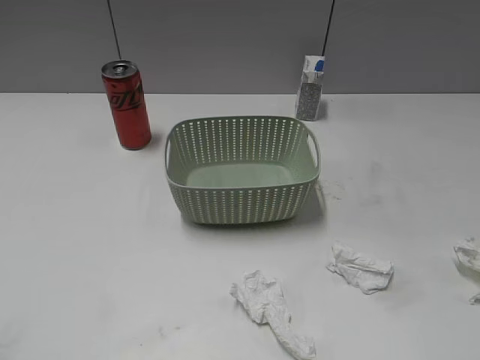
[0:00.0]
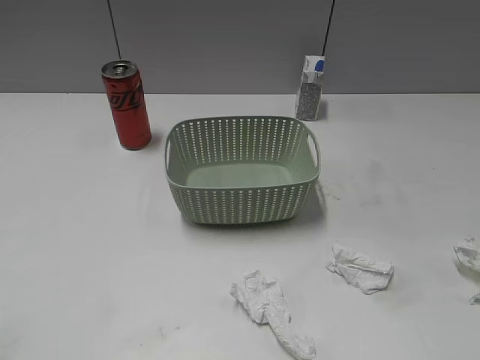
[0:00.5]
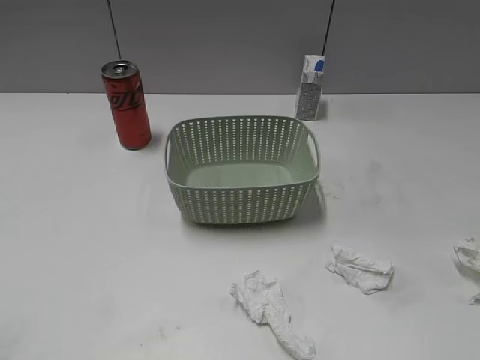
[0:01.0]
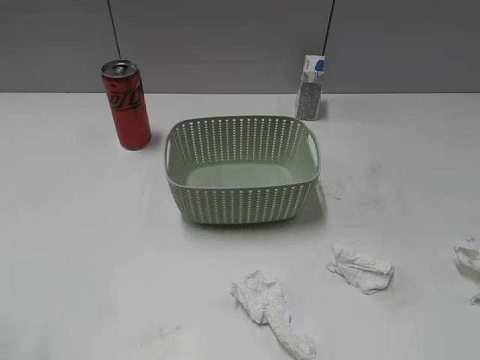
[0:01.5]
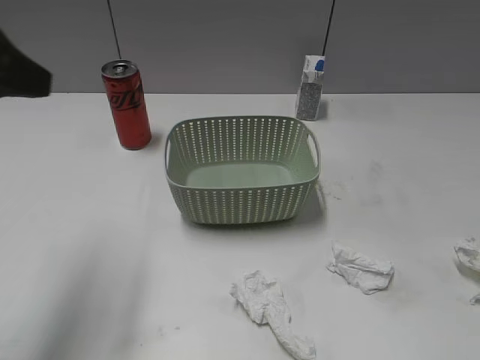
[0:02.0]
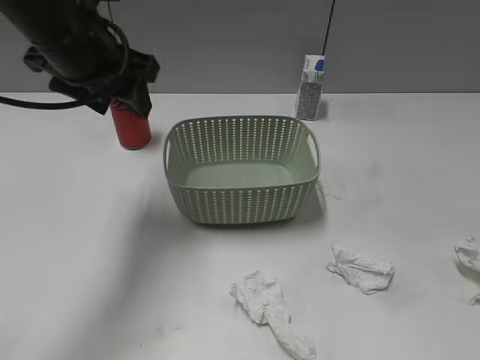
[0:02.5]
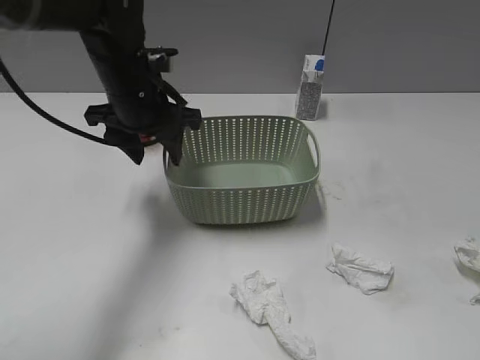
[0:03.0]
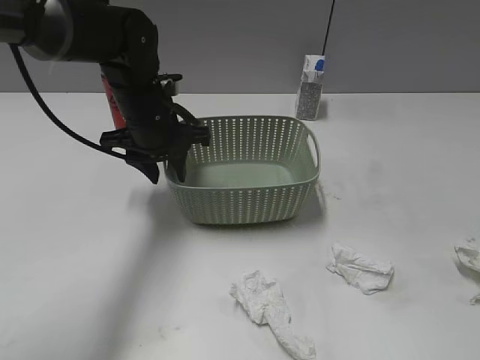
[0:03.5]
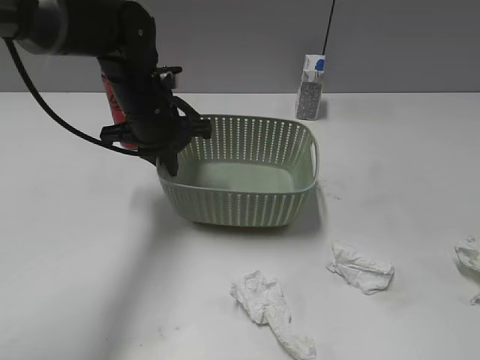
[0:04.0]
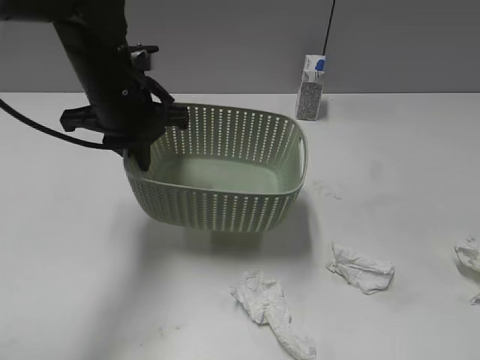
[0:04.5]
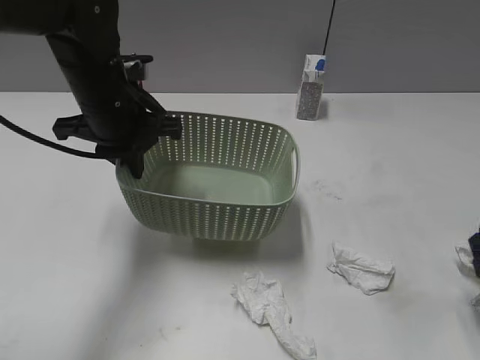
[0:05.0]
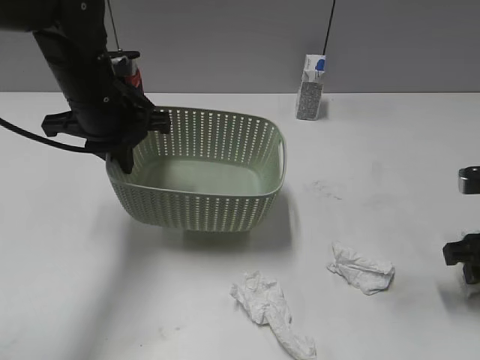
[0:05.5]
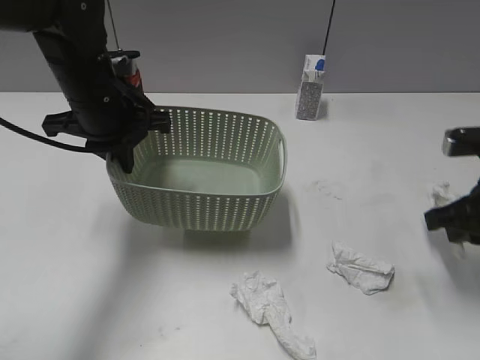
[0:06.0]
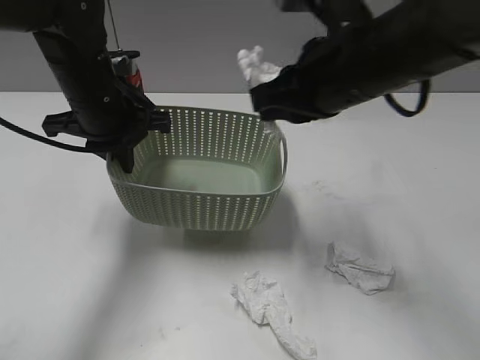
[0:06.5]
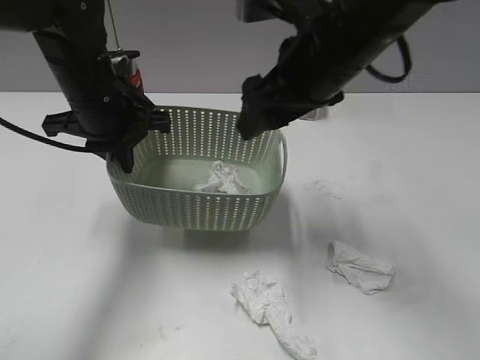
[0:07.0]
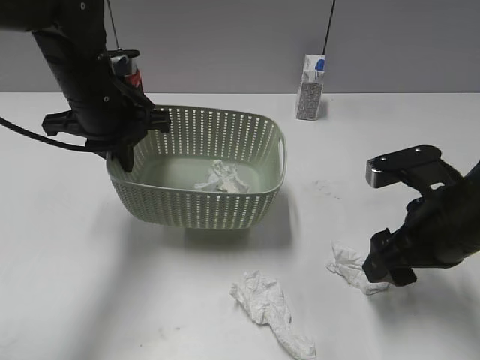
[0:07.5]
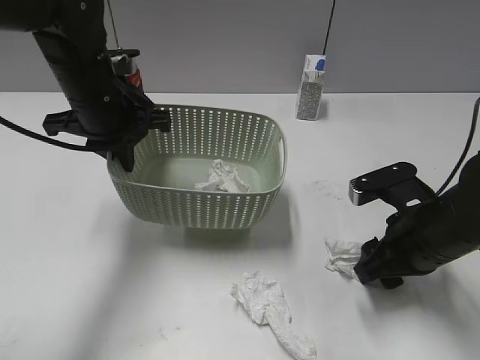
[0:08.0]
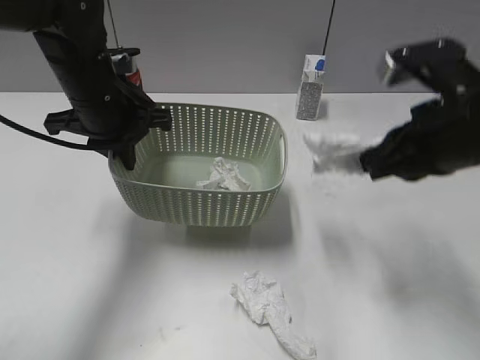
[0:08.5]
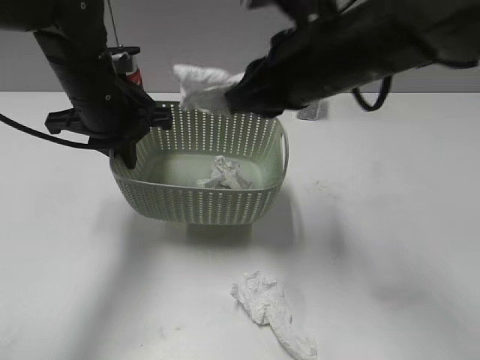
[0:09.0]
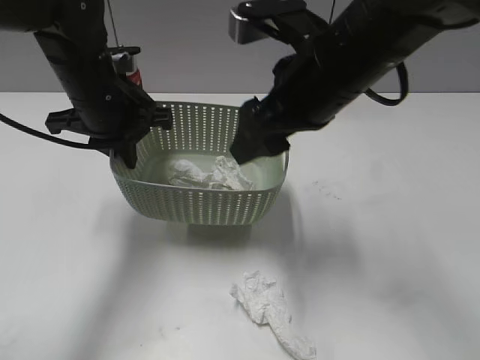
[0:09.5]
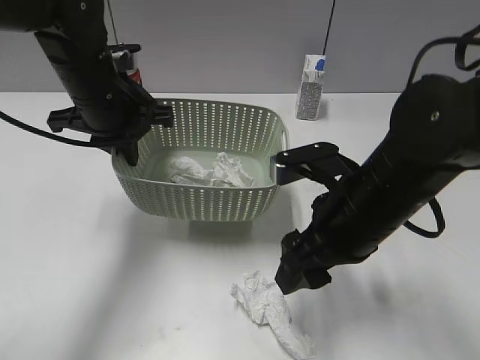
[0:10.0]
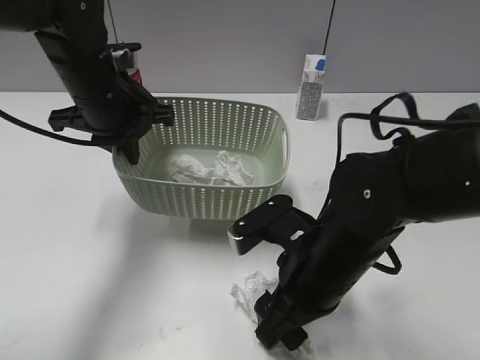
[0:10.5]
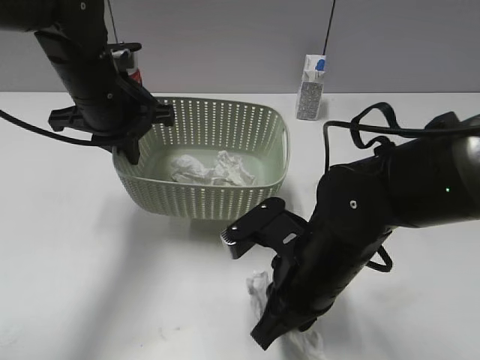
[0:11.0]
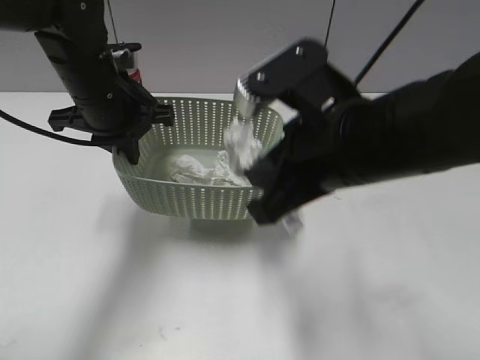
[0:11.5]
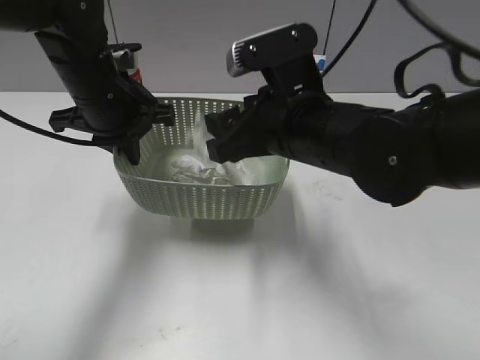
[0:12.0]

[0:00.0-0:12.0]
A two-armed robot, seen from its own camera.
Step, 0:02.0 to 0:03.5: Grasp the basket with left gripper.
Step, 0:04.5 to 0:06.0: Grasp the waste paper with right gripper.
Step, 0:07.0 to 0:08.0: Grasp the waste paper with right gripper.
Step, 0:08.5 to 0:09.0: Place the waste paper in the basket with right gripper.
Step, 0:09.5 to 0:11.0: Grasp the waste paper with right gripper.
0:02.0 to 0:04.0: The left gripper shifts some 25 cm forward, downward and to the right, and closes up.
0:04.0 to 0:06.0: The right gripper goes some 25 cm forward and downward, and closes up. Meanwhile the left gripper changes place by about 5 cm.
0:06.0 to 0:08.0: The right gripper moves downward, approximately 5 cm, goes to the left and returns, roughly 20 cm each way, and opens.
0:08.0 to 0:10.0: The right gripper goes roughly 10 cm to the left, goes upward and returns, some 15 cm each way, and closes, then opens again.
0:10.0 to 0:12.0: The right gripper goes up and down, approximately 15 cm each way, reversing 2 times, and closes, then reopens.

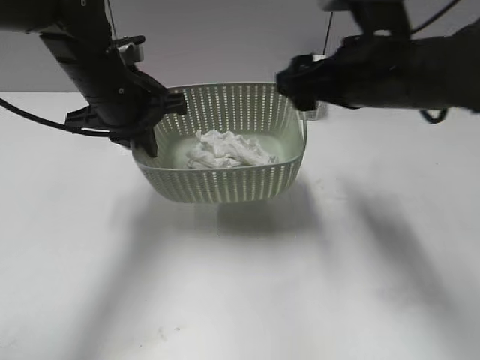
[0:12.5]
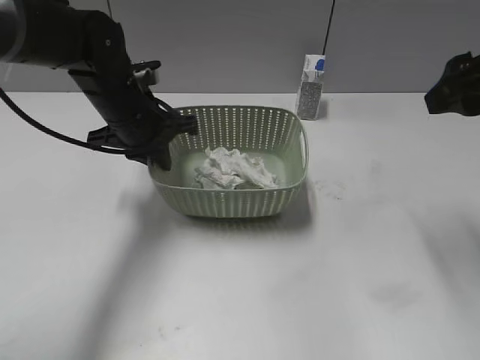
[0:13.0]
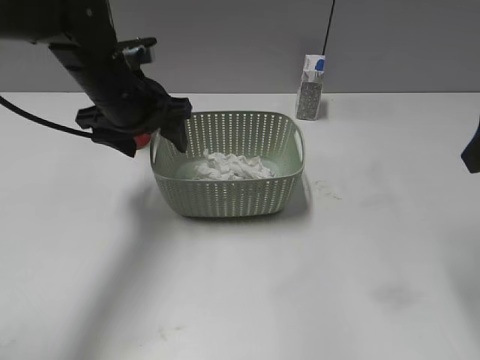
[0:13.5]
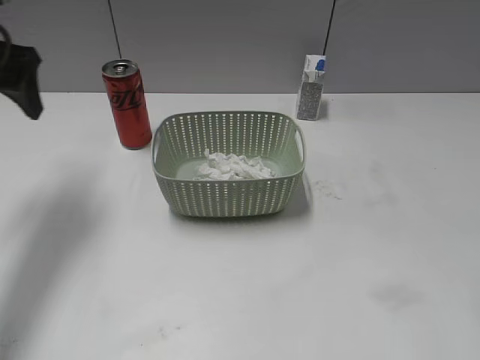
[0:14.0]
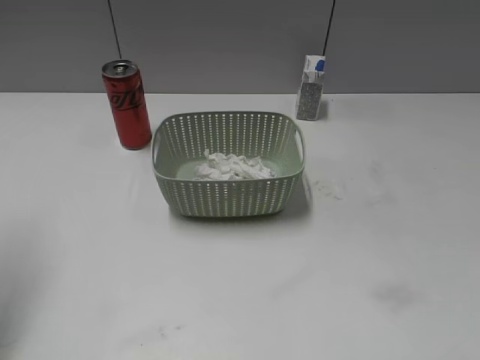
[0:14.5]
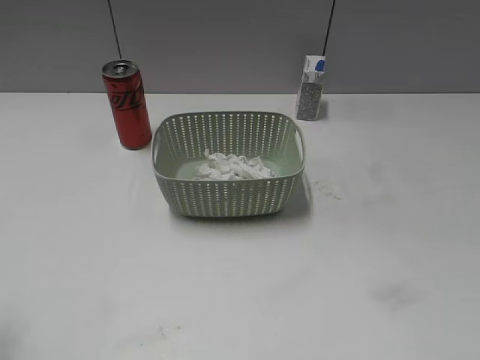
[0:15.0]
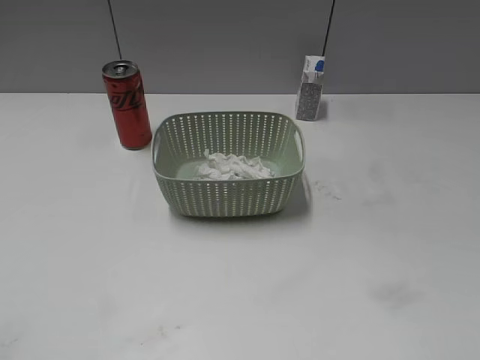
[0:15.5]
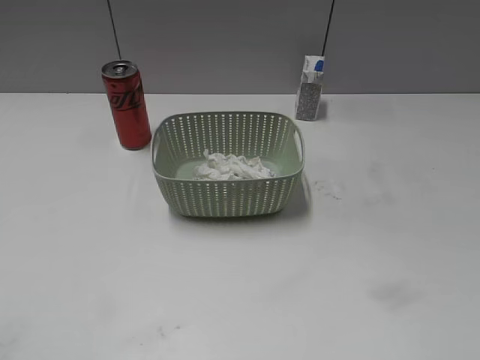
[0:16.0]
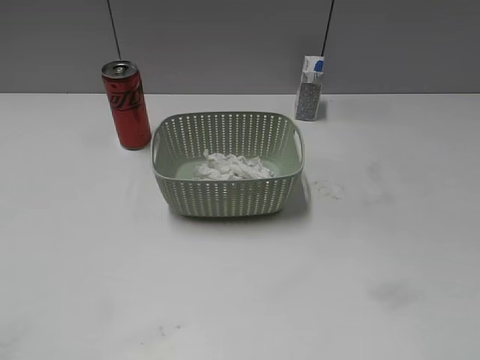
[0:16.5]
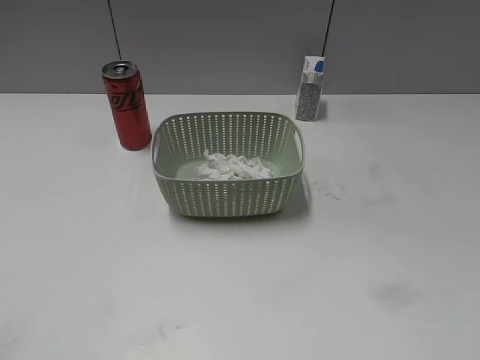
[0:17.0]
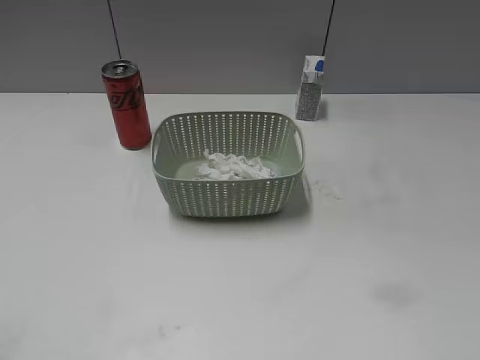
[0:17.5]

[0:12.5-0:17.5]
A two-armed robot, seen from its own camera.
Step, 0:12.5 to 0:13.0: Place the basket on the table with left gripper.
0:12.5 to 0:15.0: The left gripper is displaced backward and to the left by roughly 30 cm, and opens up. The right gripper travels backward and to the right by some 35 cm.

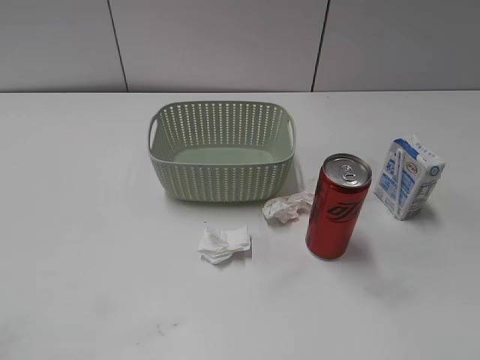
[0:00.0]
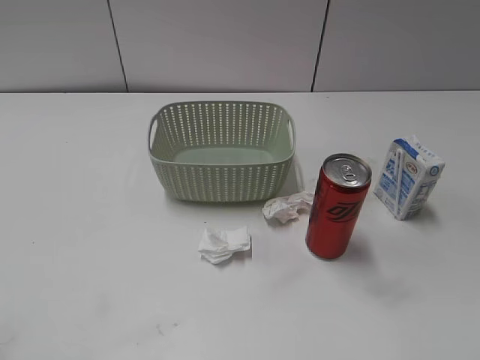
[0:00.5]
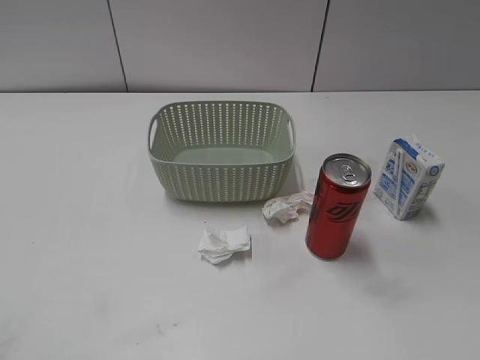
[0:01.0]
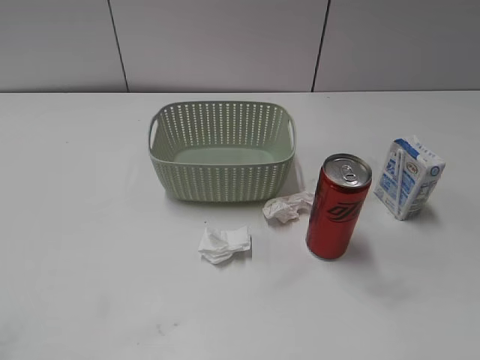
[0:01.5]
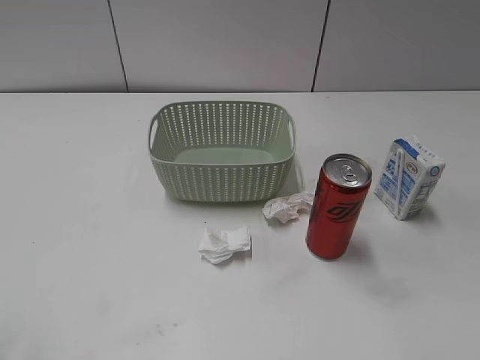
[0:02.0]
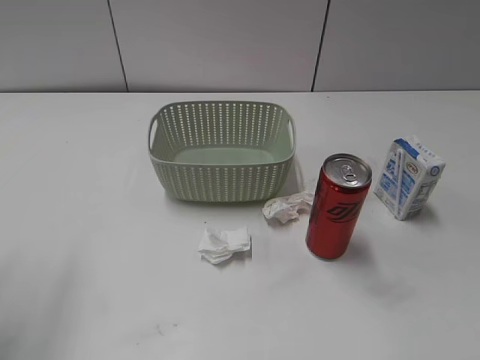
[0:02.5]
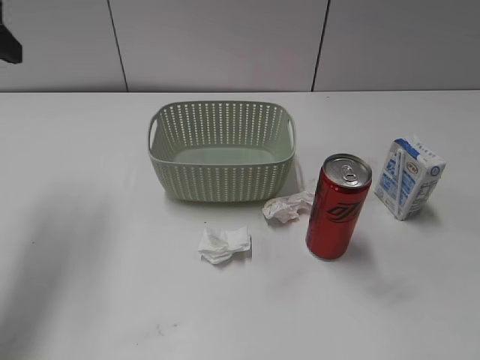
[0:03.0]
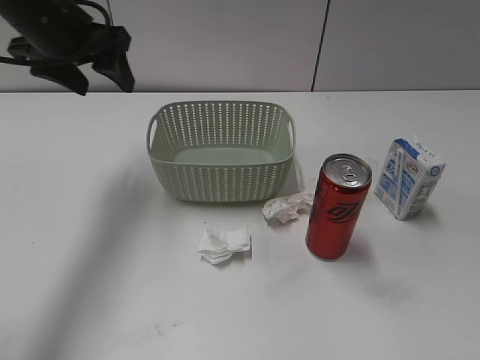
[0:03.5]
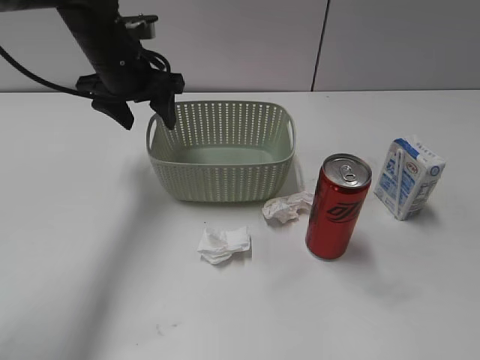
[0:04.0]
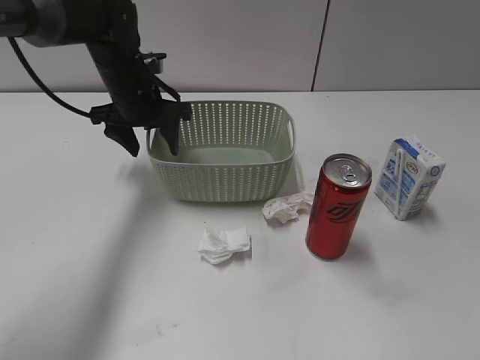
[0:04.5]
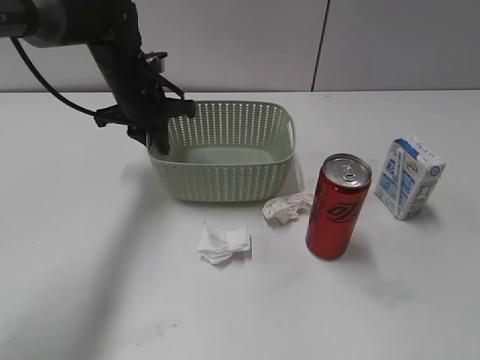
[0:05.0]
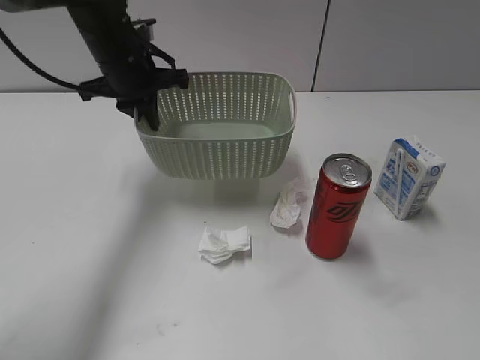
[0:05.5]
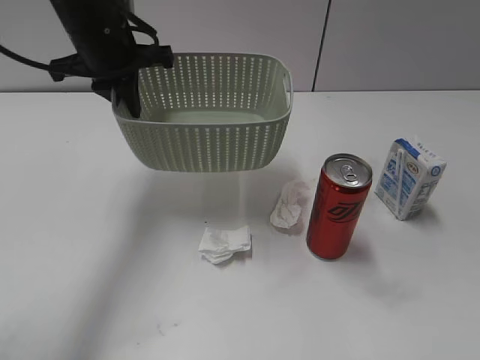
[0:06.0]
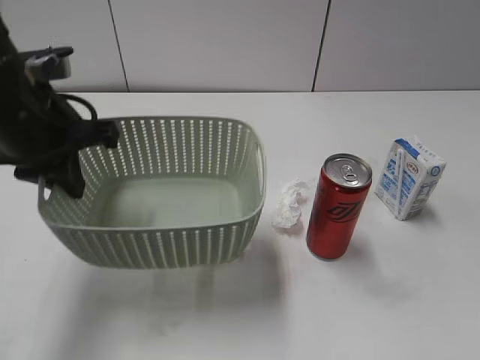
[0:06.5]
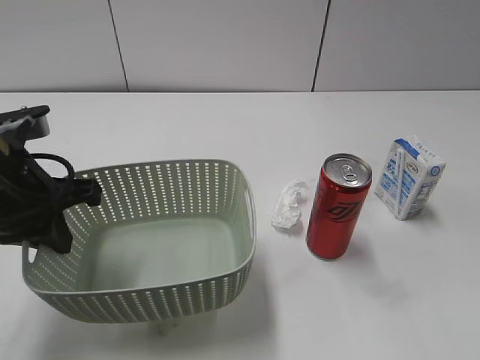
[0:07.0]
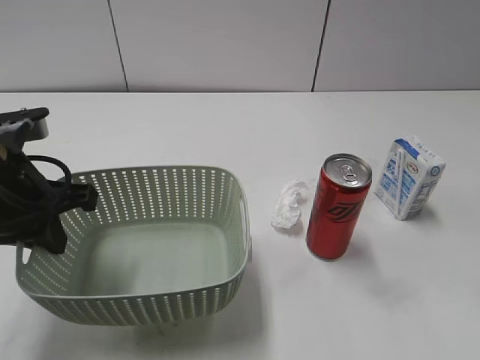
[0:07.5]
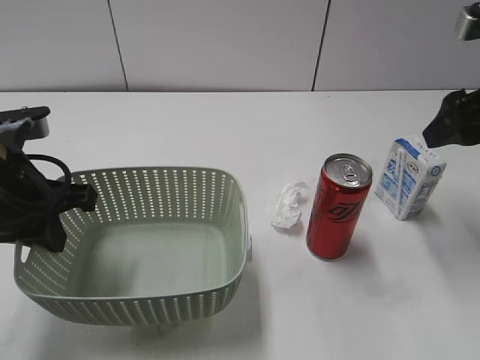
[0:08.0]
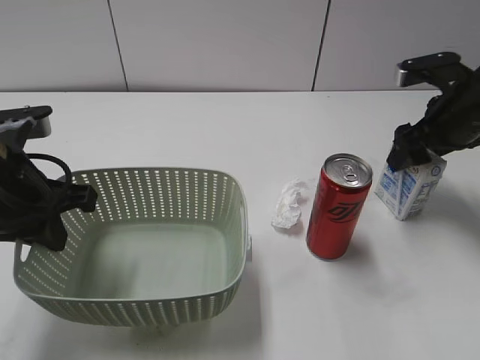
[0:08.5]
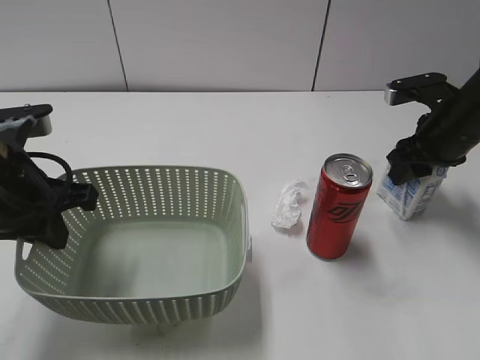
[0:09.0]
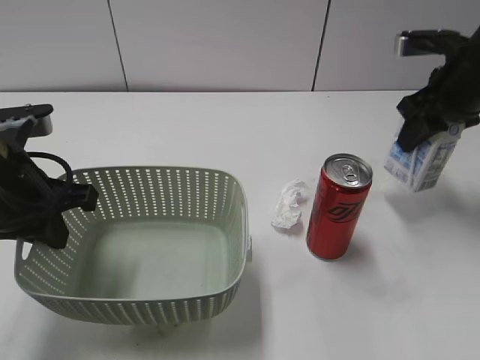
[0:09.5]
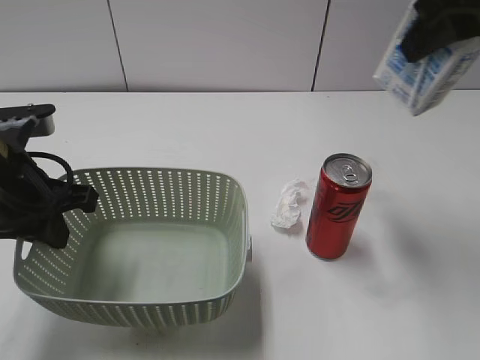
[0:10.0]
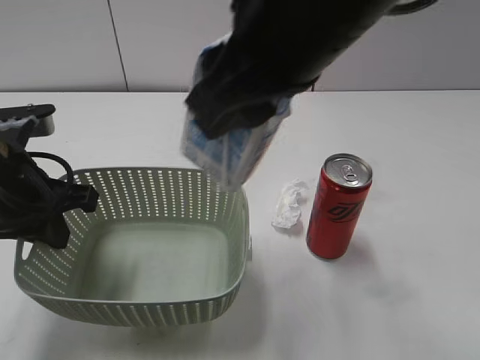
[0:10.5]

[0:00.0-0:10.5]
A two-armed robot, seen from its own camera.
Step, 0:03.0 to 0:05.0: Grasp the basket with left gripper.
Step, 0:05.5 to 0:07.0: Lift the basket with left gripper.
Step, 0:07.5 to 0:09.0: Grasp the milk with right gripper.
0:02.0 to 0:04.0: The left gripper moves forward and to the right, some 40 cm.
0:04.0 to 0:06.5: The left gripper travels backward by some 15 cm, and closes up.
0:06.5 to 0:08.5: The right gripper is displaced forward by some 35 cm, and opens; the left gripper moves backward, about 5 cm.
0:08.5 to 0:10.5: The right gripper shifts roughly 30 cm to the left, upward and backward, and closes.
